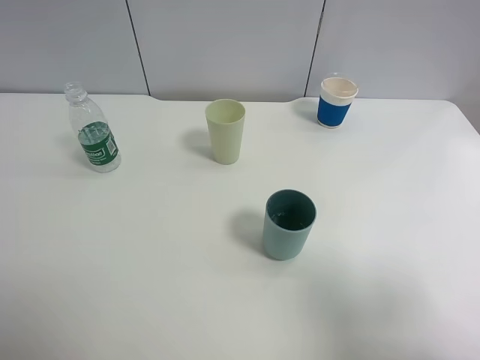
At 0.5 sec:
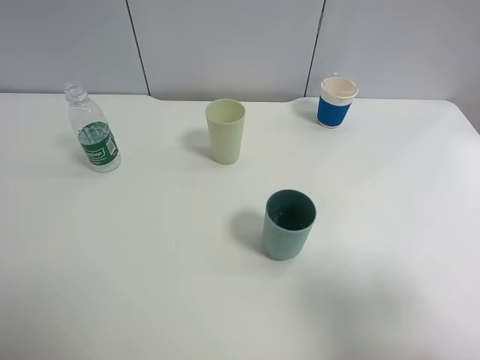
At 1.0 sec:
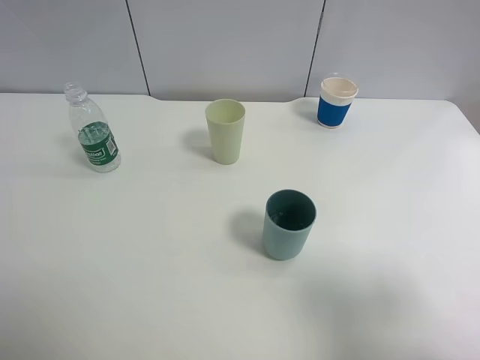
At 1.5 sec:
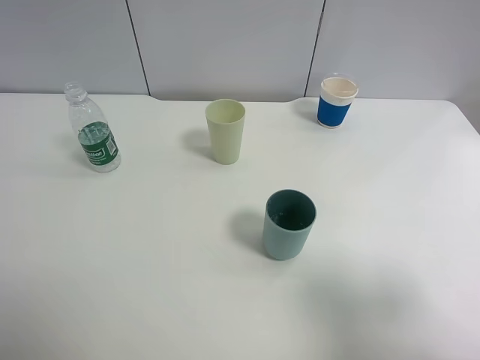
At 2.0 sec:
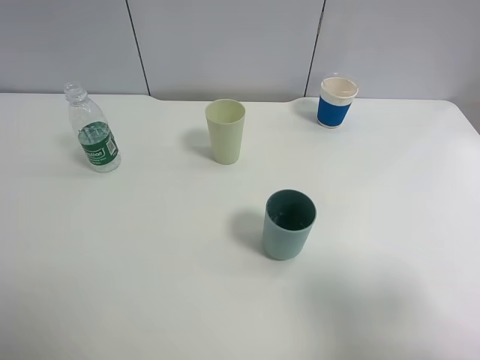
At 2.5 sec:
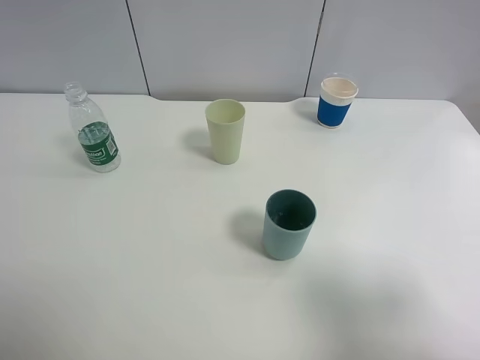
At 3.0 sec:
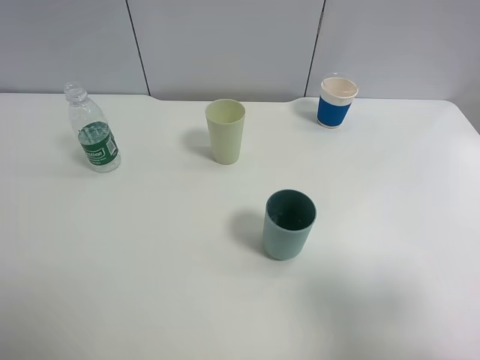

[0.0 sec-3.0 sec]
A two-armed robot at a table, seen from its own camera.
Task of the whole recording: use a clamp to hold the bottle of the drink, pour the beverage into a random cup, then clamp the cup containing the drink and pour the drink into another random cup.
1.5 sec to 3.0 sec: Neither gripper changes place.
